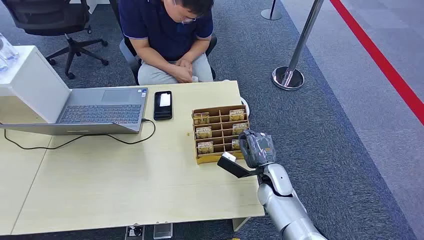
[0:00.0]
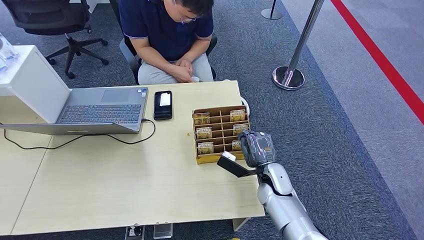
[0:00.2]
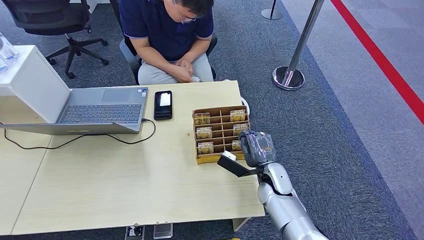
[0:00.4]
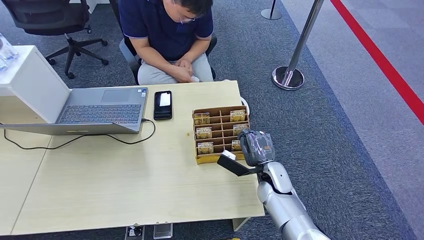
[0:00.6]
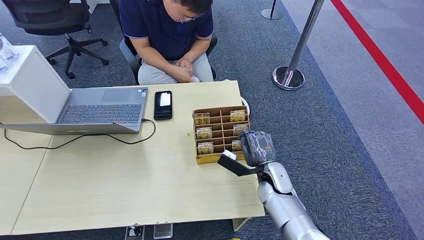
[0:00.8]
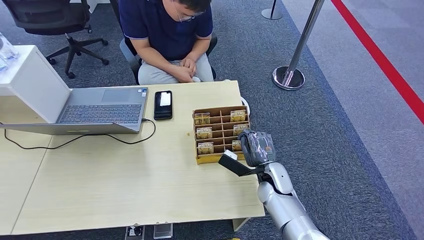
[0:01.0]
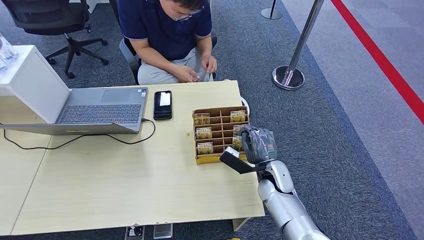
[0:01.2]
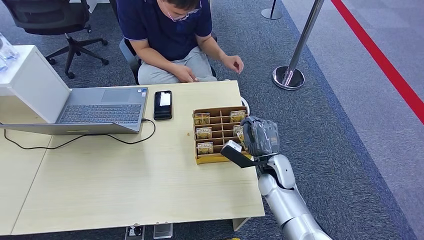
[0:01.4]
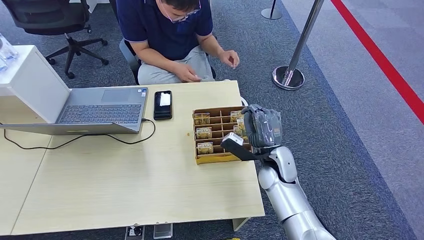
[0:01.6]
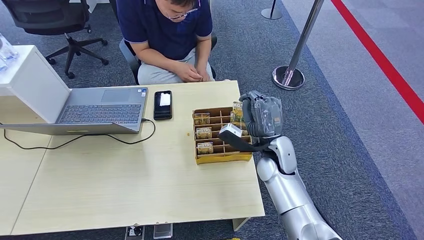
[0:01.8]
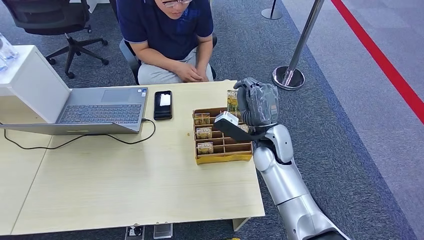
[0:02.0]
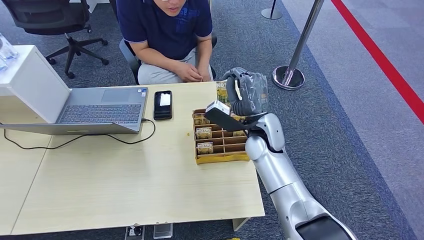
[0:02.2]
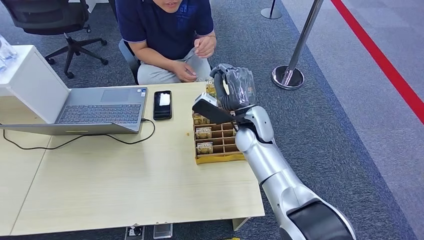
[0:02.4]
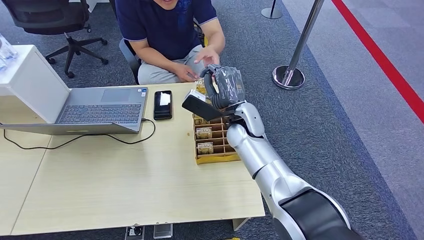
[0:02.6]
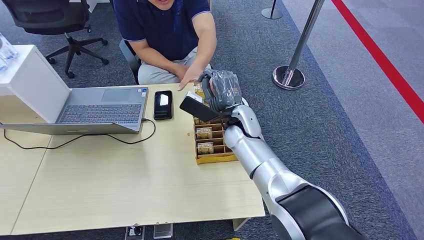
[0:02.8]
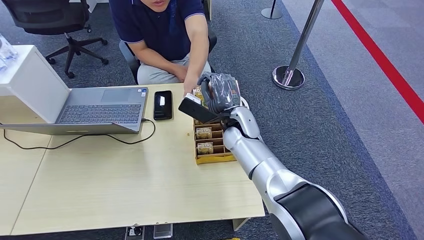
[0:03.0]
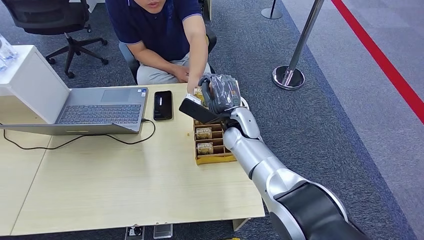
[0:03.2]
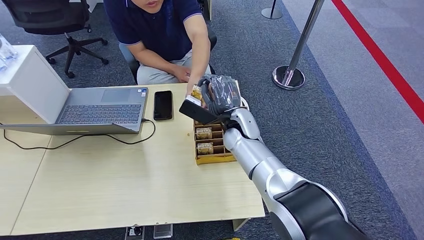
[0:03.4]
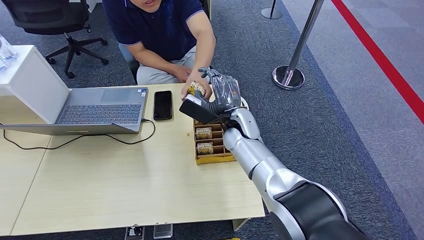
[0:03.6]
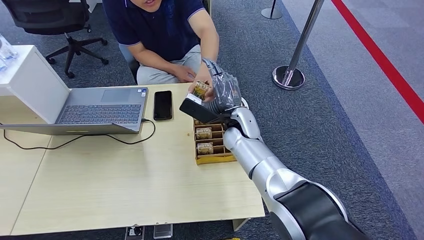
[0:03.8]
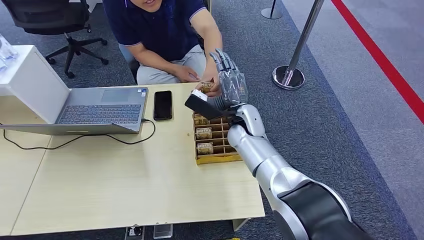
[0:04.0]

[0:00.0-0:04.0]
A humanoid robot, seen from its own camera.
Task of the whole recording: Pick up the card and hand it over to the target person.
Step, 0:00.0 to 0:02.4: Pick up the key card from the card box.
Step, 0:02.6 to 0:03.8: Hand the key card to the target.
0:01.4 to 0:02.6: The right hand travels to the left, forward and upward by roughly 15 cm.
0:02.6 to 0:04.0: The right hand is displaced to the right by some 5 cm.
